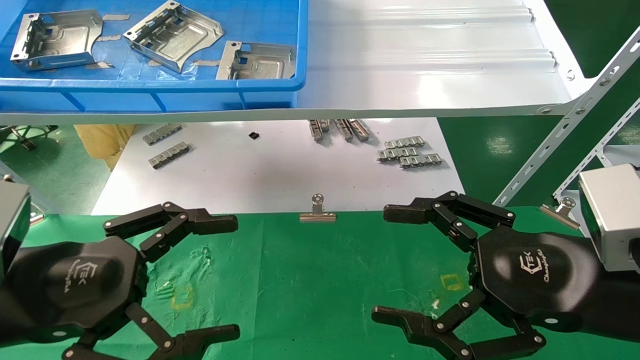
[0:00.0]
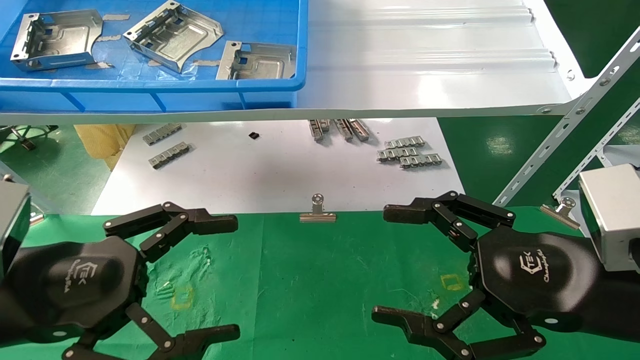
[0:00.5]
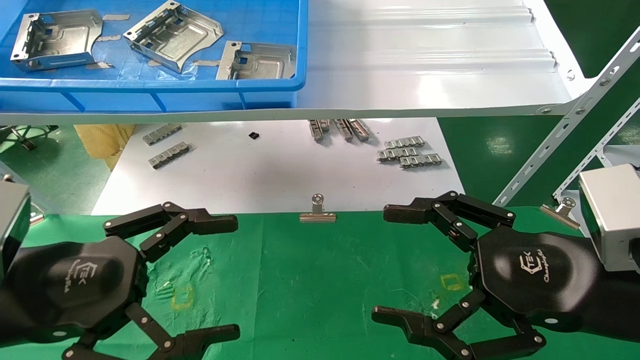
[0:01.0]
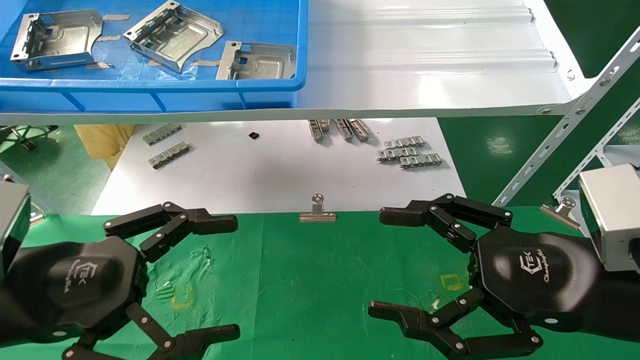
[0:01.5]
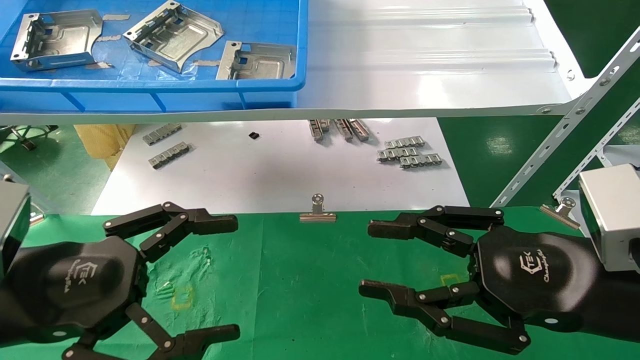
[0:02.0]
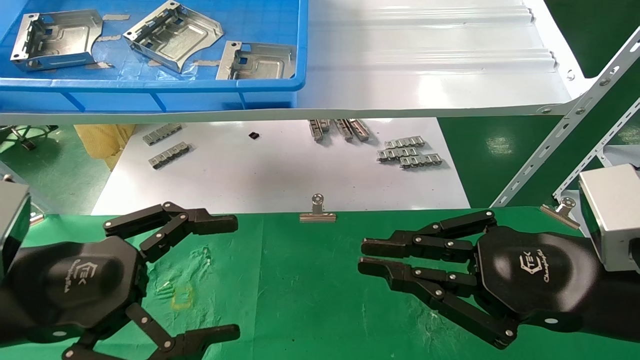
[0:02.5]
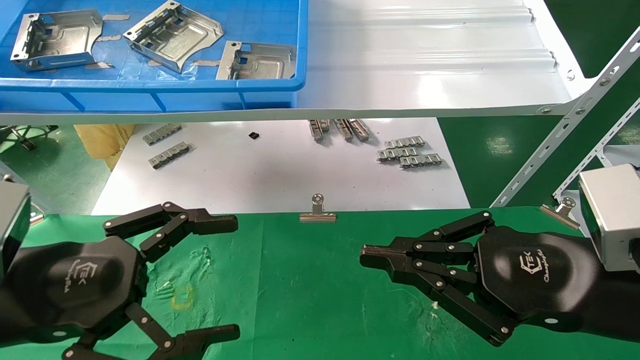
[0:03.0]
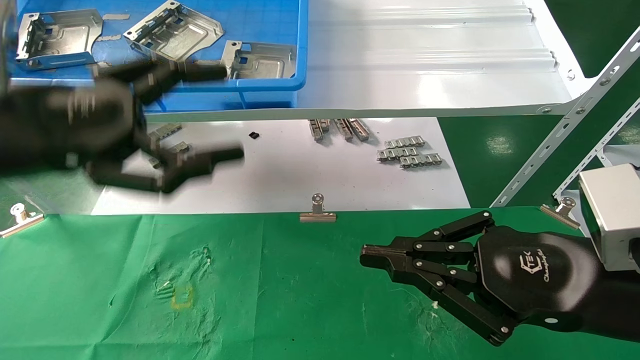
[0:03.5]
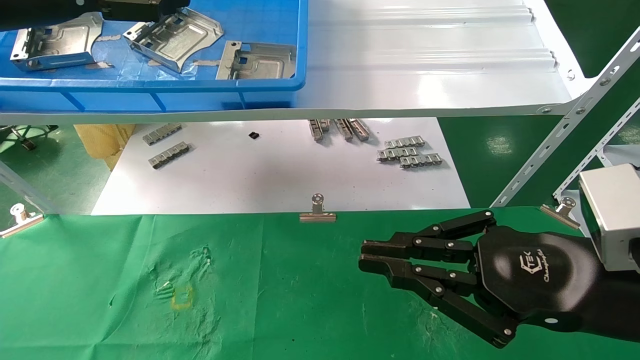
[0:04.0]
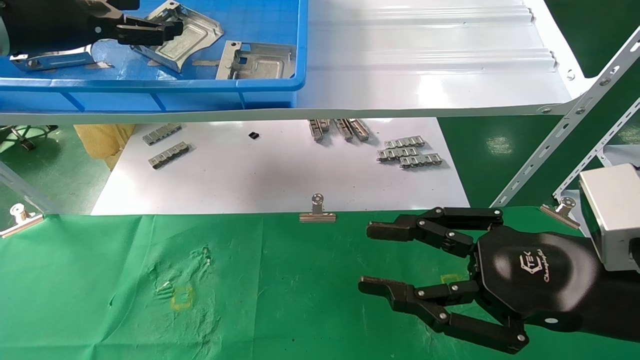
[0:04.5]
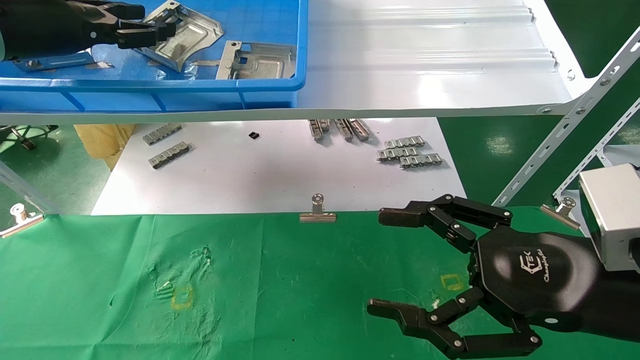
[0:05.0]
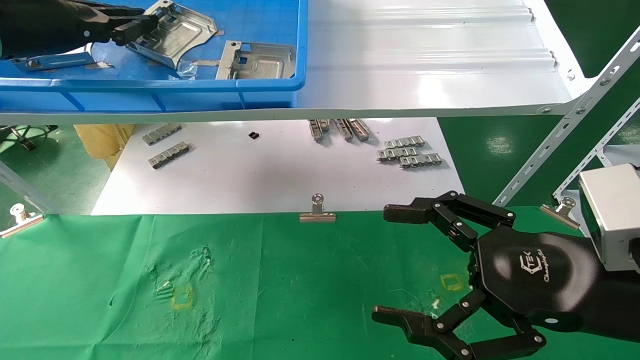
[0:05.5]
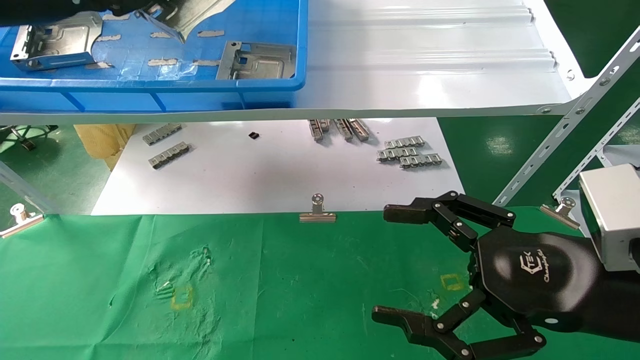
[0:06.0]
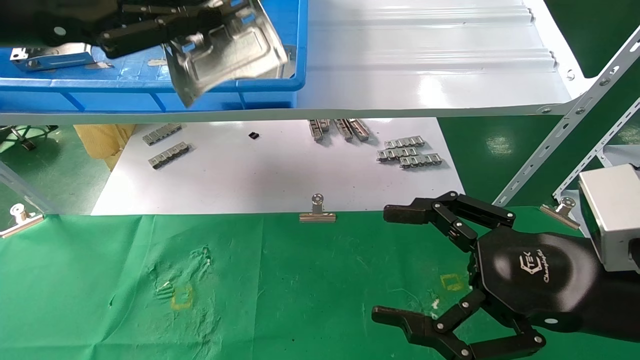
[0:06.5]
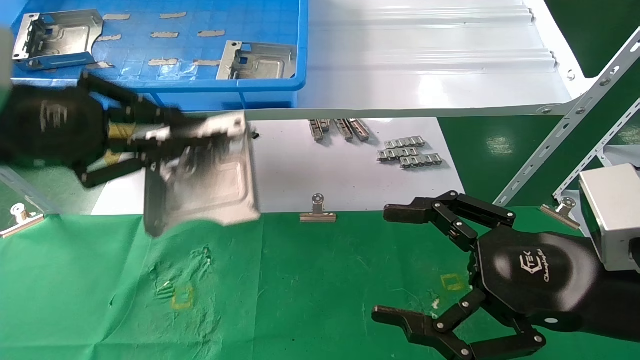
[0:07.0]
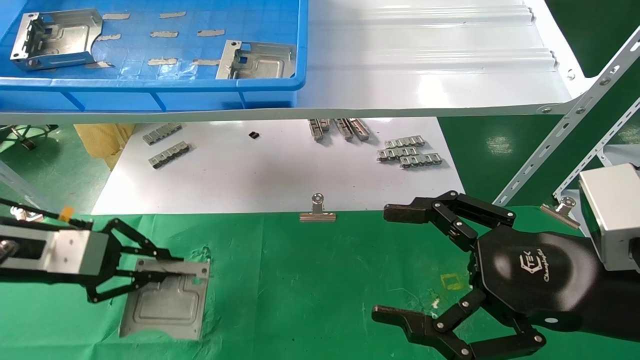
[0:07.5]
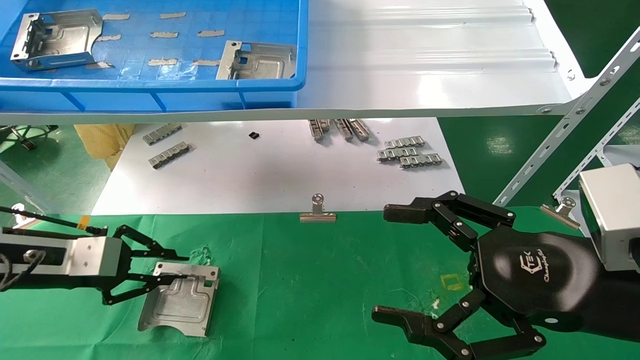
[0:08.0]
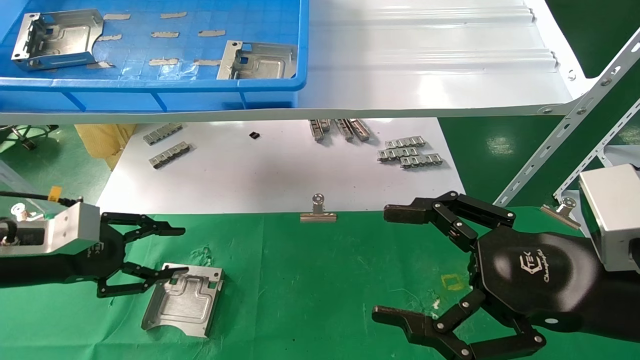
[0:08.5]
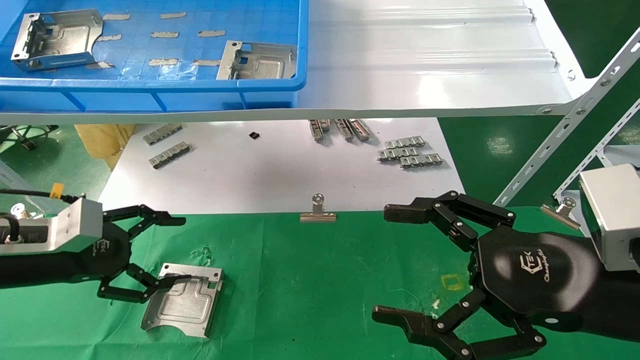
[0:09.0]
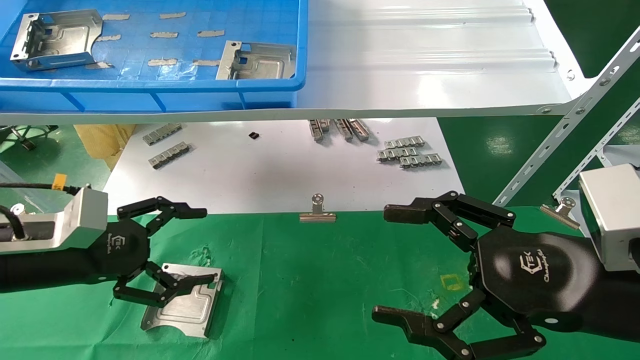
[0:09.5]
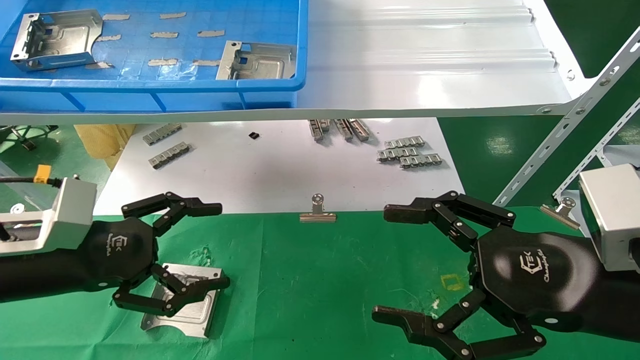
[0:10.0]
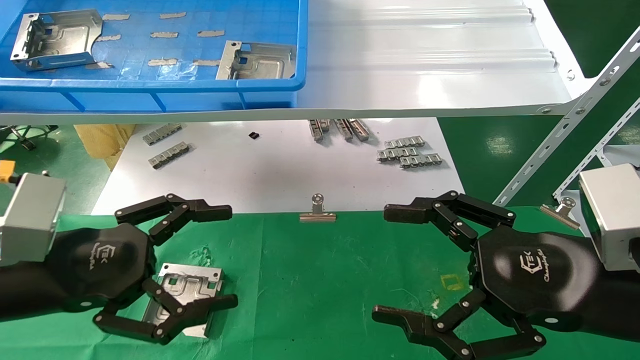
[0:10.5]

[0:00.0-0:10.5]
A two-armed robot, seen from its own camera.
Task of the whole recording: use the mechanical arm to pick up the parts and place them on the table.
Step, 0:03.5 to 0:05.5: Pick up the hard drive bracket from the feeding area.
Step, 0:06.0 to 0:08.0: Place the hard drive bracket into the box.
0:00.0 to 0:02.0: The right gripper closes its fingers.
0:02.0 to 0:04.0: The left gripper heads upward and forward, covering roughly 25 cm, while the right gripper closes up.
0:04.0 to 0:06.5: The right gripper opens its fingers. The left gripper travels backward by about 5 cm, and closes its fingers.
0:06.5 to 0:08.5: The left gripper is displaced downward by about 25 cm.
0:08.5 to 0:10.5: The left gripper travels backward and to the right by some 15 cm, and opens its fingers.

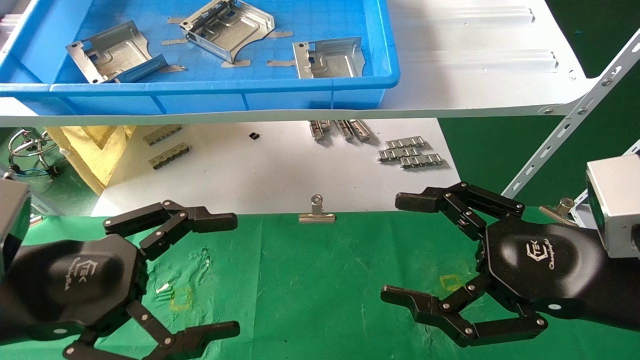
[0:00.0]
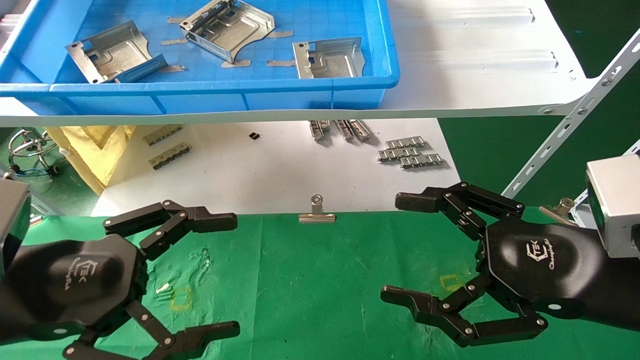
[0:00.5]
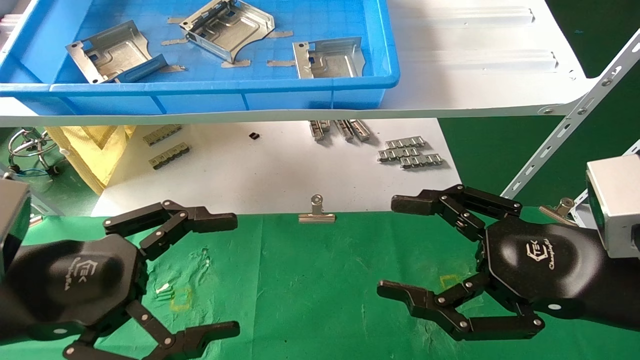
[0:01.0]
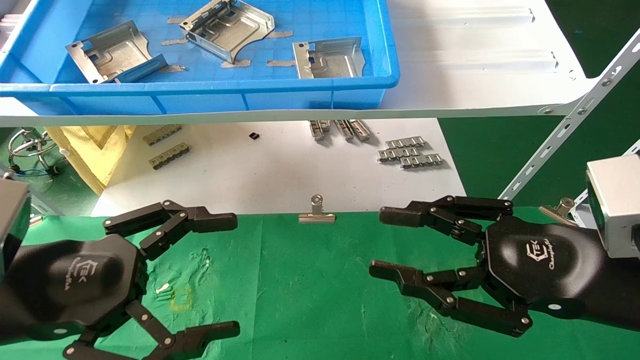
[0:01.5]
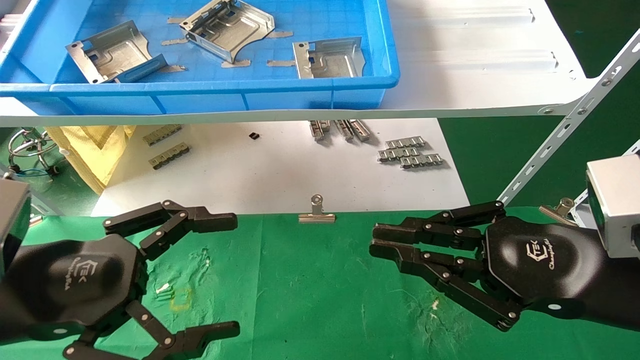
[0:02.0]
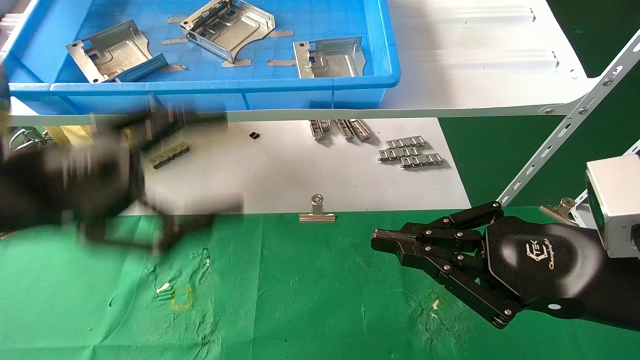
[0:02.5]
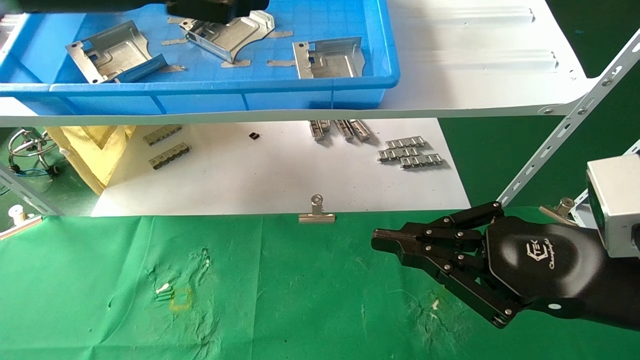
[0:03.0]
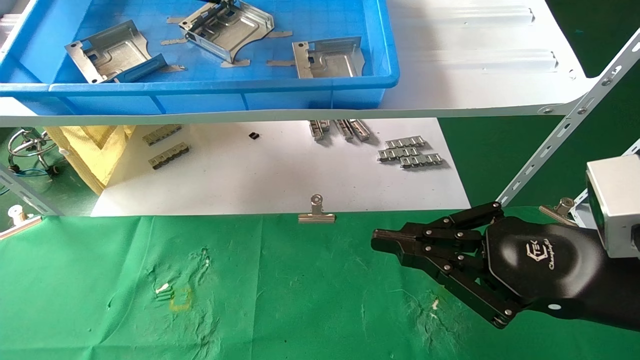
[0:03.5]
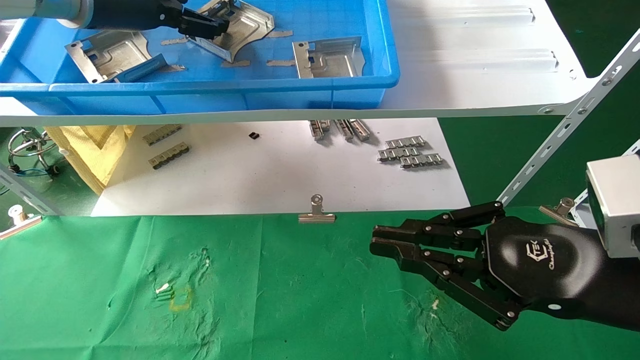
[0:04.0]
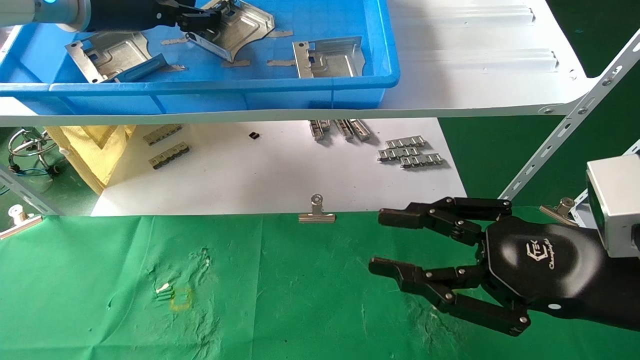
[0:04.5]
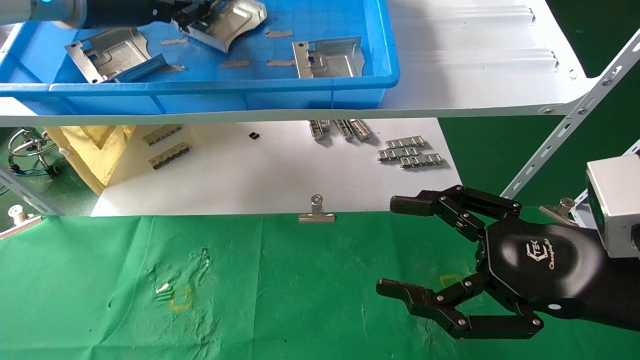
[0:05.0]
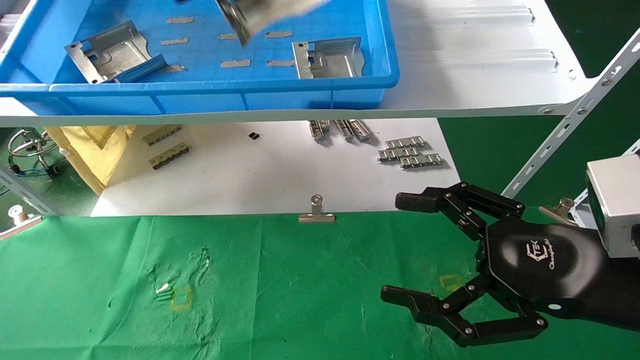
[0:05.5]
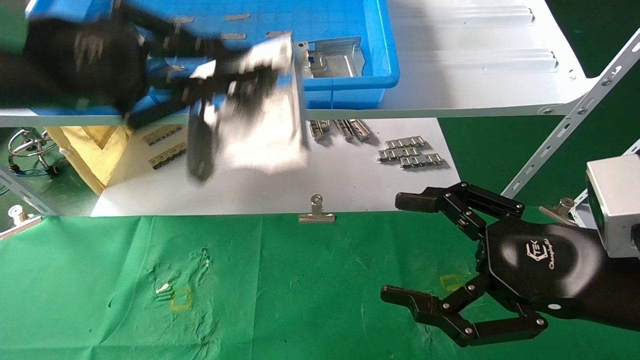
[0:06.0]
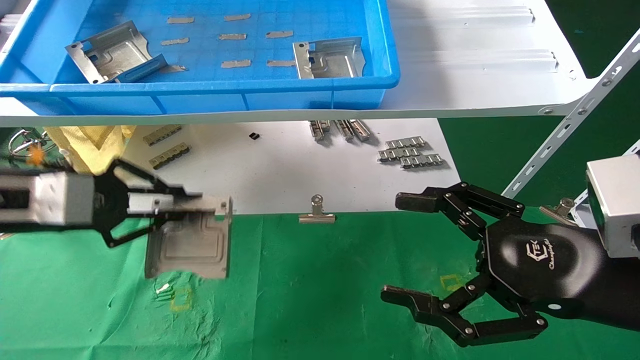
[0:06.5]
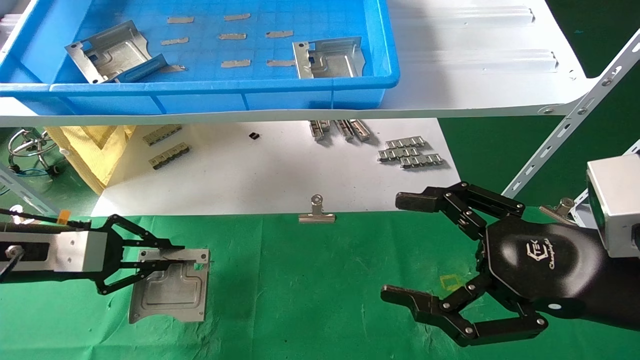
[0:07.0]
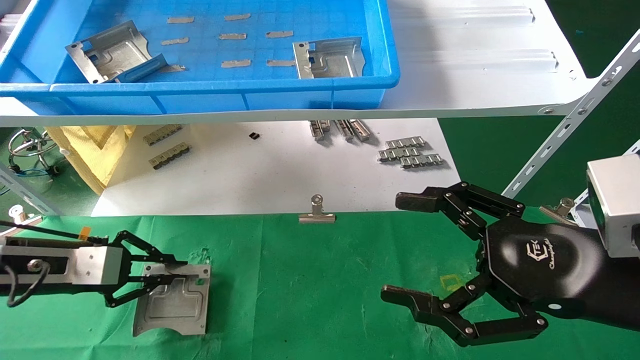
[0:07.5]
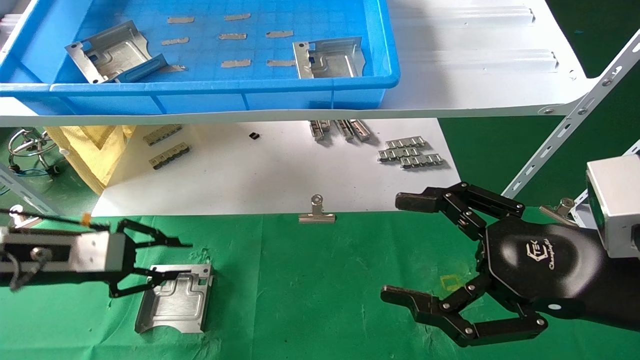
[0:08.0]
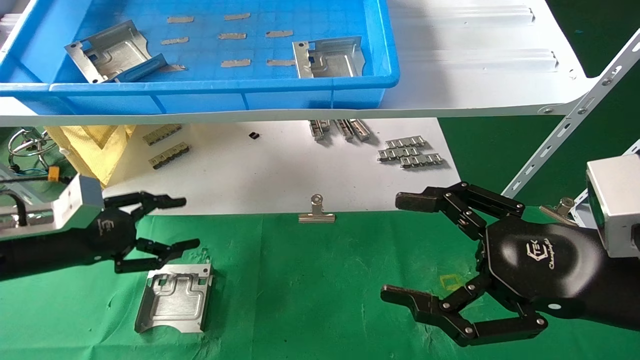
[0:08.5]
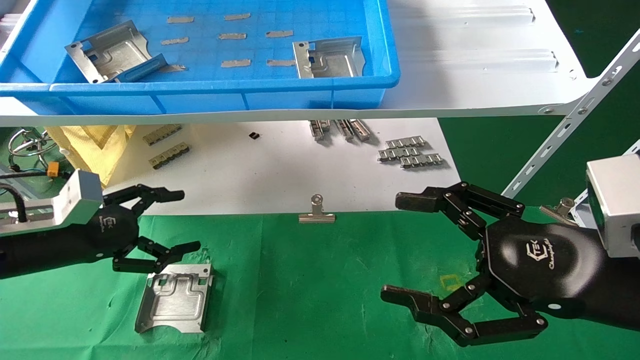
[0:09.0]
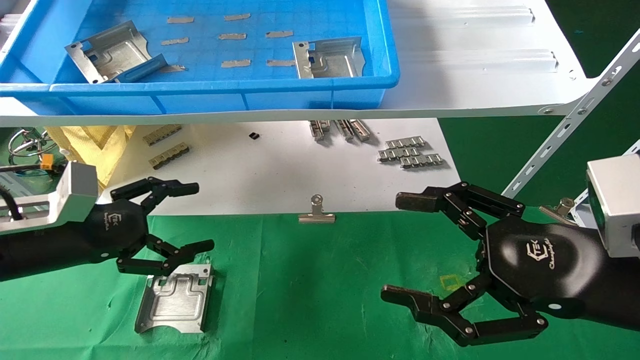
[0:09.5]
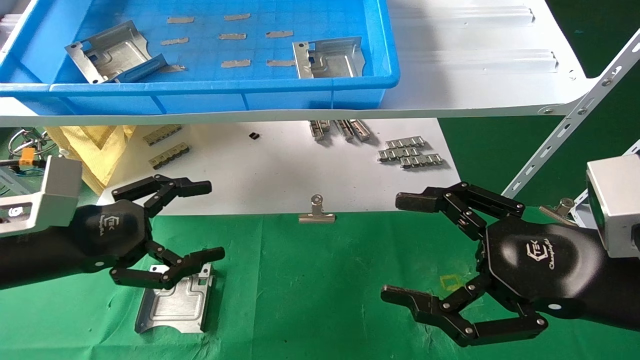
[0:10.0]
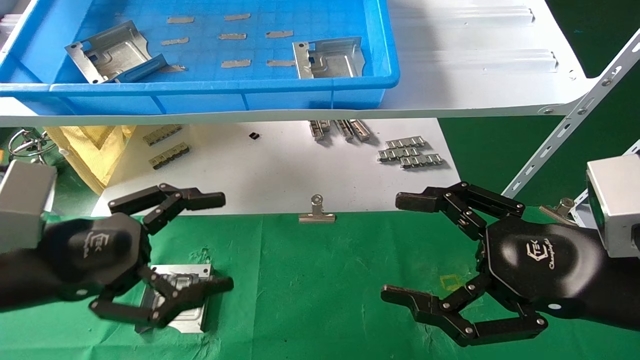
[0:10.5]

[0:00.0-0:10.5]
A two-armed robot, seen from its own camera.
Task of the whole recording: use the mechanical arm to pick up the parts and place them on the table.
Step, 0:02.0 to 0:04.5: Pick up the hard drive bracket from the feeding area.
Step, 0:05.0 to 0:08.0: Place the hard drive bracket into the box.
0:00.0 to 0:02.0: The right gripper closes up.
0:02.0 to 0:04.0: The left gripper moves upward and forward, roughly 35 cm.
0:04.0 to 0:06.5: The left gripper is displaced downward, backward and to the left by roughly 25 cm, and closes its fingers. The right gripper opens its fingers.
0:06.5 to 0:08.5: The left gripper shifts approximately 10 cm downward, and opens.
0:08.5 to 0:10.5: The left gripper is displaced backward and to the right by some 15 cm, and opens.
